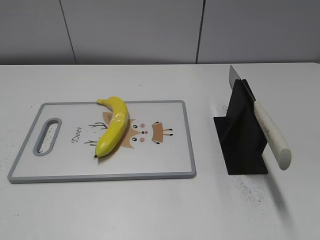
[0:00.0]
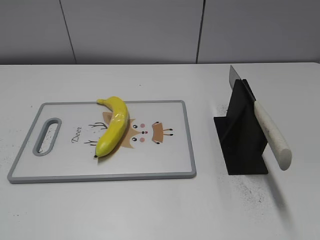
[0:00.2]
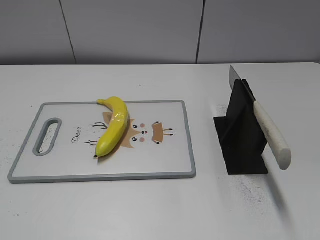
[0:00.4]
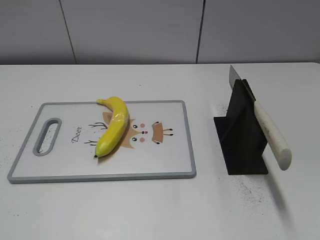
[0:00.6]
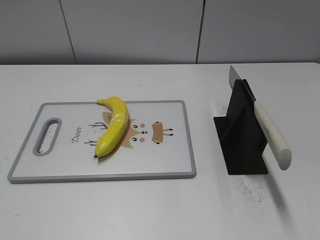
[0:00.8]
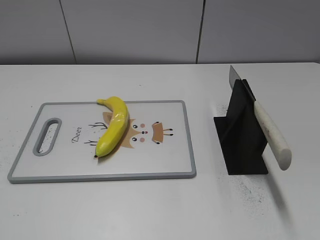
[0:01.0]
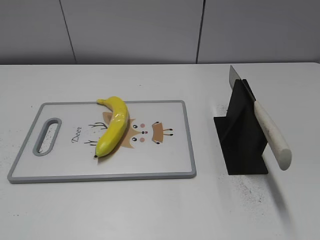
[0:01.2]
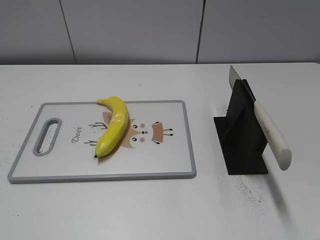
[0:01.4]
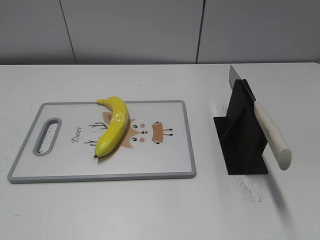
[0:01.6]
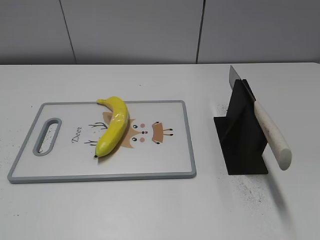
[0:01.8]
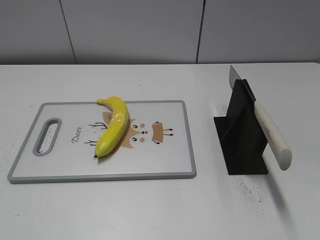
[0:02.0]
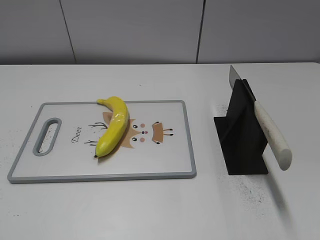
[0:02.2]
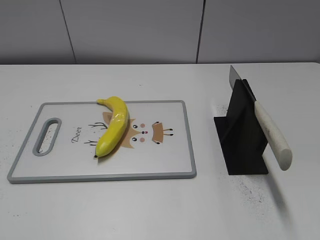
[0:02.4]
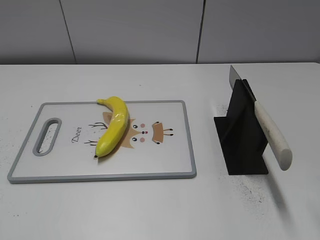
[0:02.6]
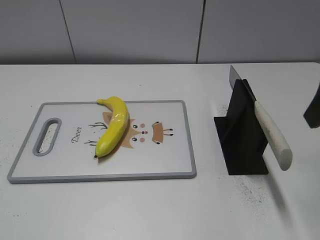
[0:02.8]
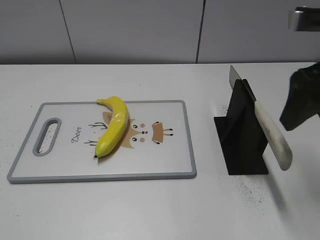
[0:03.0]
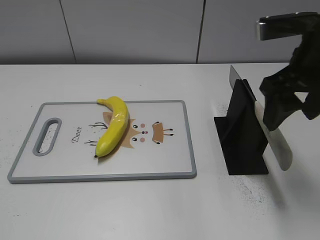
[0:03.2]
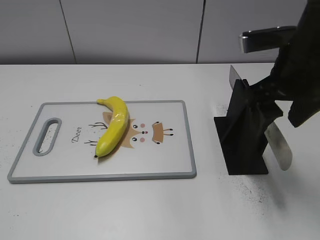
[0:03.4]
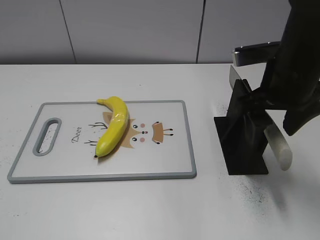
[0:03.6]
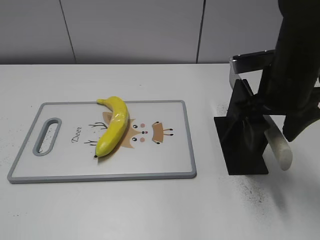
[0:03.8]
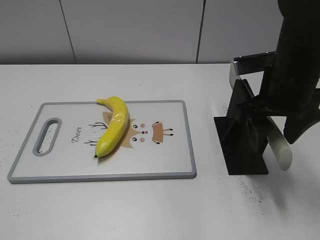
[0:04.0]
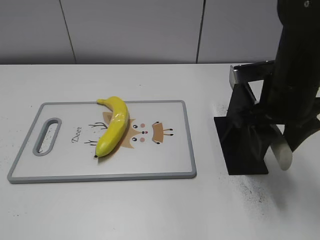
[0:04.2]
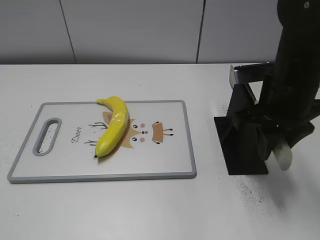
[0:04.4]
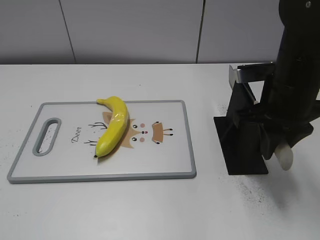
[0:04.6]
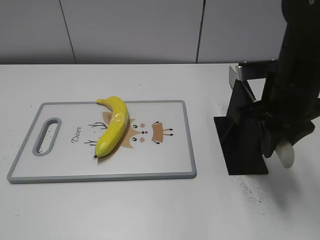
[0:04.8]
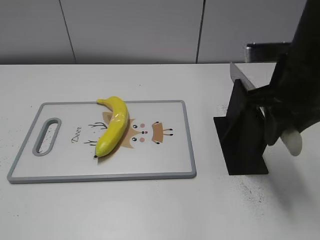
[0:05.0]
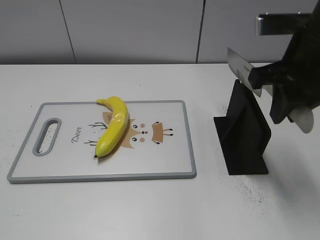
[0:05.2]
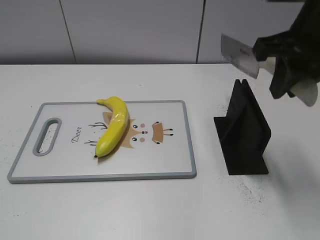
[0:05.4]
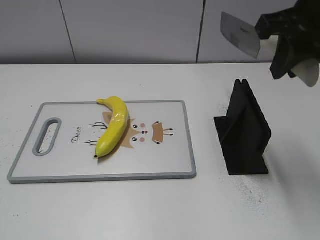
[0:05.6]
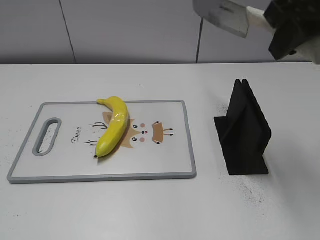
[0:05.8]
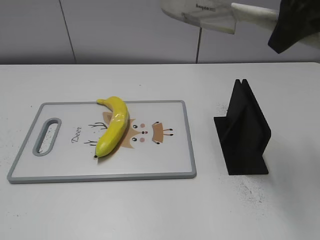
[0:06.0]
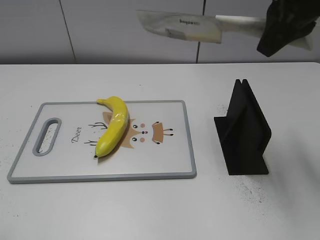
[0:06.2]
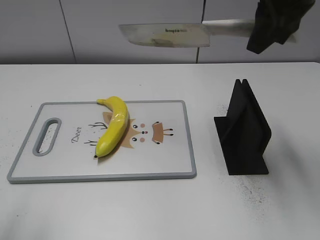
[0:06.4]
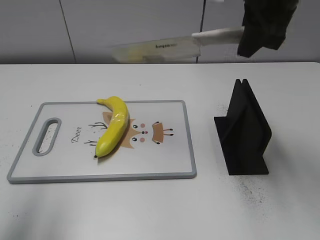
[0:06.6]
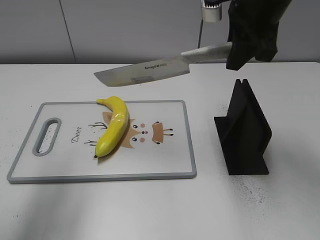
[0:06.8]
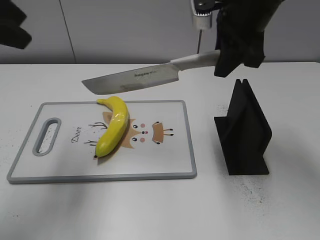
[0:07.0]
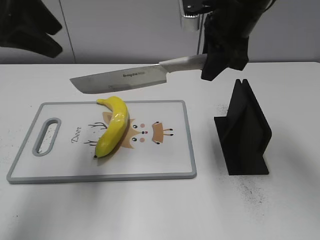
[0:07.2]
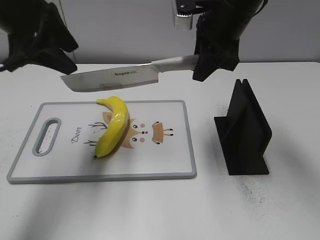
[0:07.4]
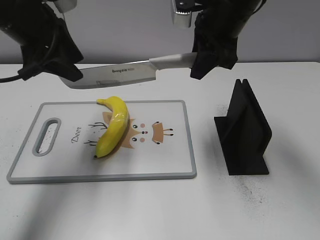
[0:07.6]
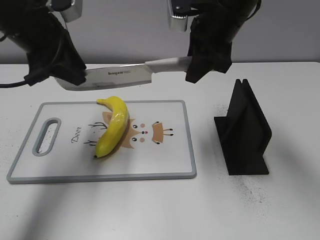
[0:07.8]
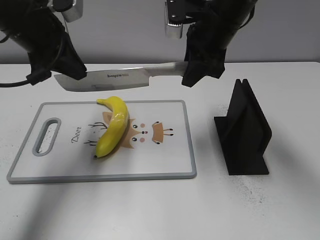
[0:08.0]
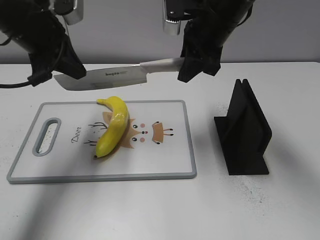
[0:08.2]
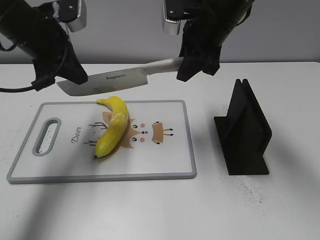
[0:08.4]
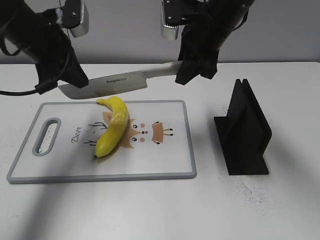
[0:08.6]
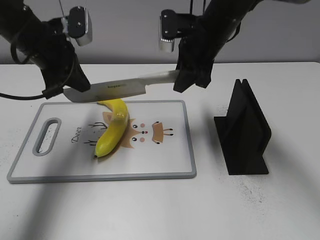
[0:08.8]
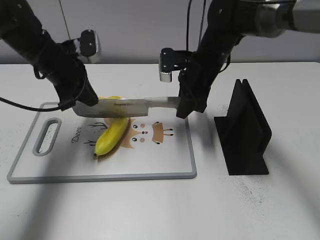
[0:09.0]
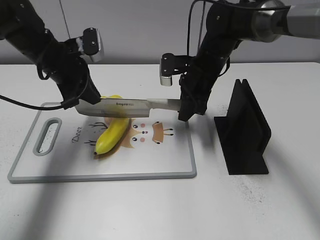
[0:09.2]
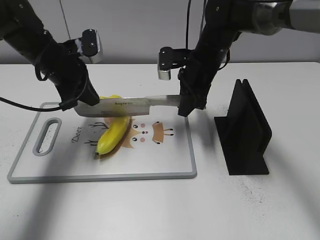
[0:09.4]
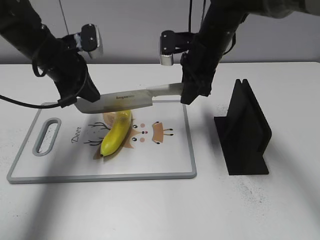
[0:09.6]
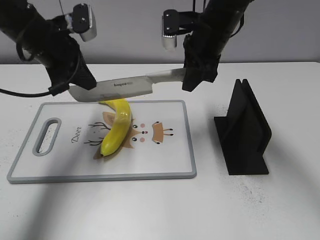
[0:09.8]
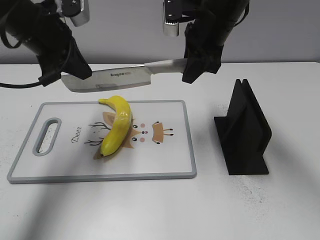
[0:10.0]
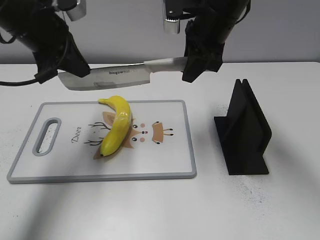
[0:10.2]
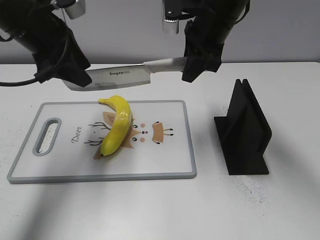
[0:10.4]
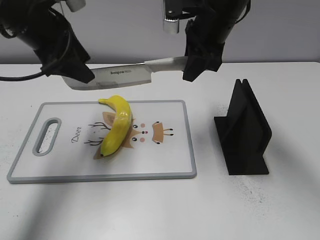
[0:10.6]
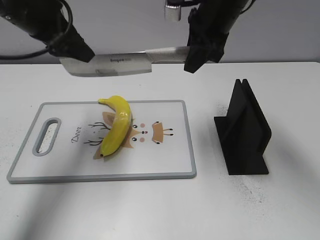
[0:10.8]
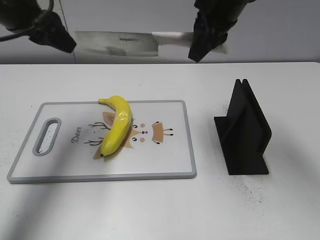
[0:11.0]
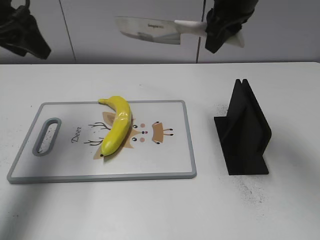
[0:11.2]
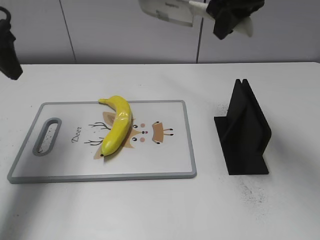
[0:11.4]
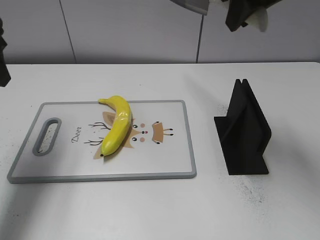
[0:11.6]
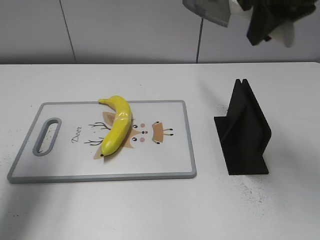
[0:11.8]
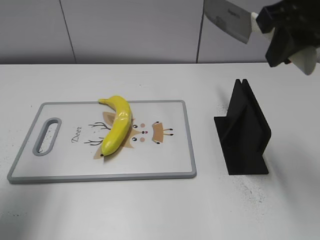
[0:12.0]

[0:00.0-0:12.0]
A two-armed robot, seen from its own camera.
Task of the whole recording: cut plastic banana.
Step, 0.0 to 5.8 s: Grab the knife handle with your right hand.
Step, 6.0 to 10.2 s: Hold the blade with your left hand.
Step, 10.4 to 11.6 s: Cut the banana with your right hand.
1.6 to 3.0 s: The right gripper is displaced forward by roughly 25 cm.
3.0 to 4.4 s: The right gripper is displaced downward and to the left by about 10 cm, and closes its fingers.
4.4 to 6.0 s: The right gripper is displaced upward by some 15 cm.
6.0 to 7.6 s: The right gripper goes approximately 15 cm forward, downward and to the left; the left gripper shifts some 35 cm forward.
7.6 to 9.0 s: The right gripper moves downward, about 15 cm. The left gripper goes some 15 cm downward and forward, and closes up.
9.0 to 10.4 s: Both grippers travel together upward, roughly 10 cm. The left gripper opens up.
10.4 to 12.0 s: The right gripper is displaced backward, upward and to the right by roughly 20 cm. The left gripper is displaced backward and to the left by some 15 cm.

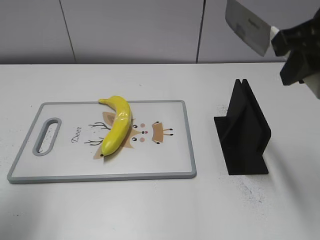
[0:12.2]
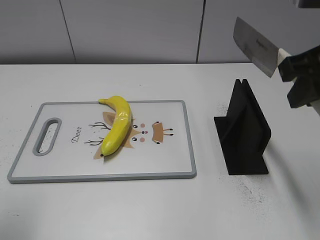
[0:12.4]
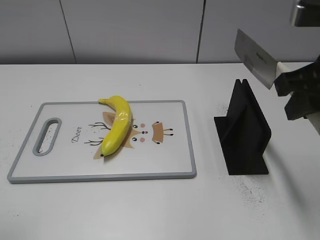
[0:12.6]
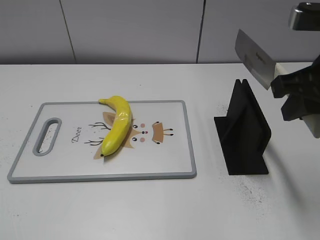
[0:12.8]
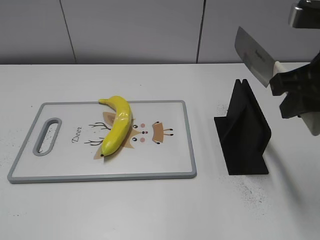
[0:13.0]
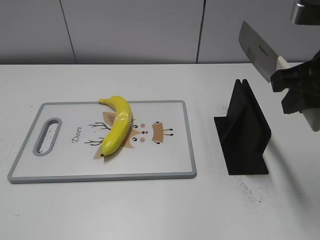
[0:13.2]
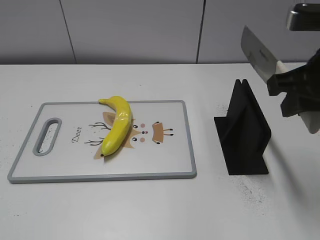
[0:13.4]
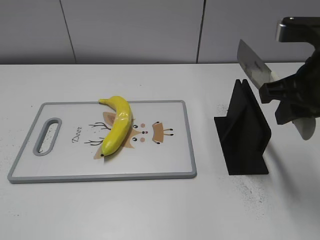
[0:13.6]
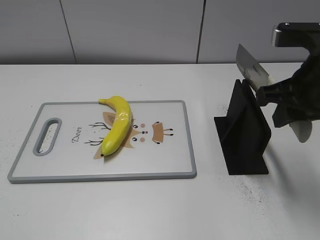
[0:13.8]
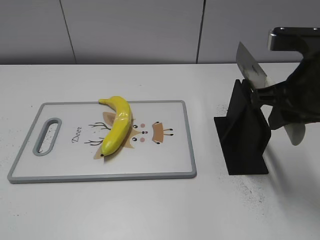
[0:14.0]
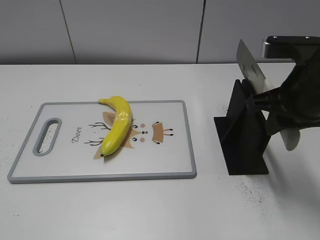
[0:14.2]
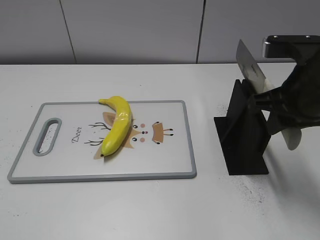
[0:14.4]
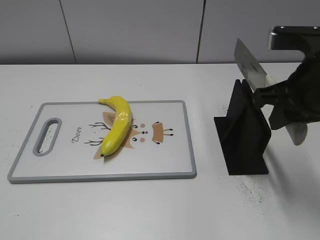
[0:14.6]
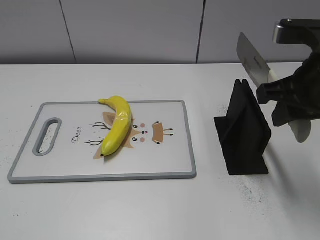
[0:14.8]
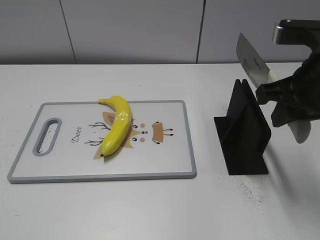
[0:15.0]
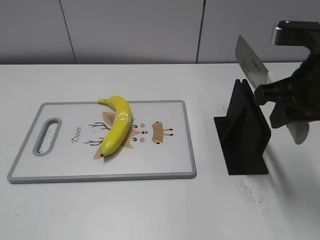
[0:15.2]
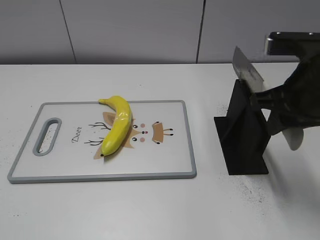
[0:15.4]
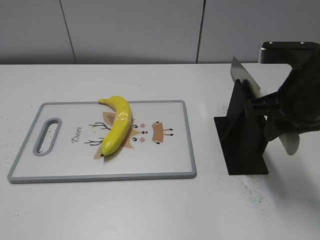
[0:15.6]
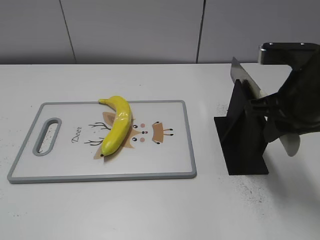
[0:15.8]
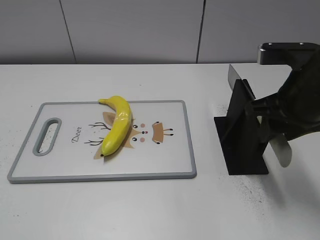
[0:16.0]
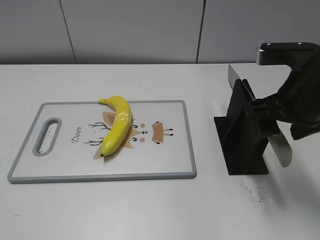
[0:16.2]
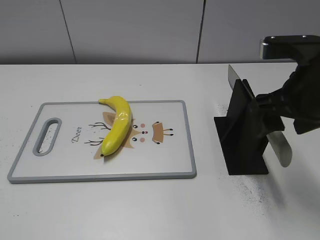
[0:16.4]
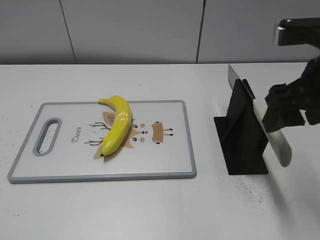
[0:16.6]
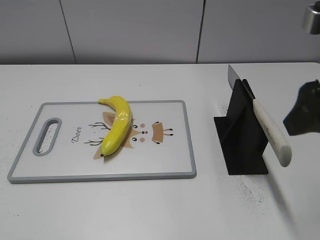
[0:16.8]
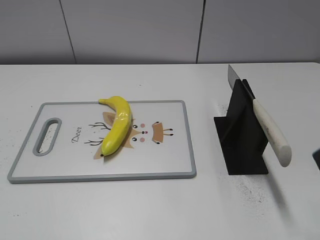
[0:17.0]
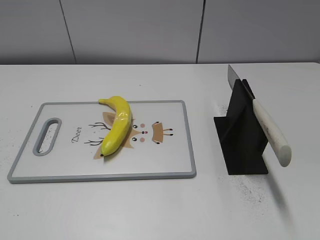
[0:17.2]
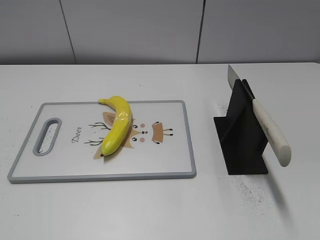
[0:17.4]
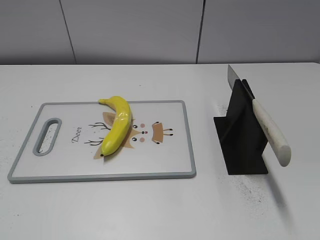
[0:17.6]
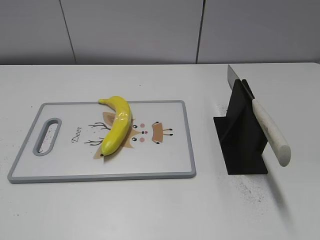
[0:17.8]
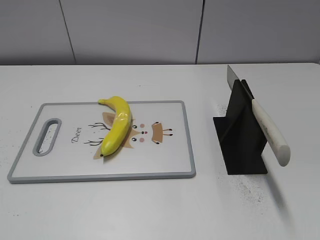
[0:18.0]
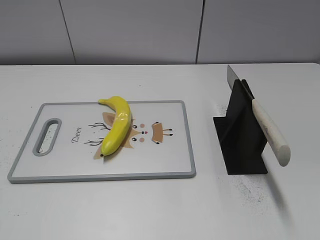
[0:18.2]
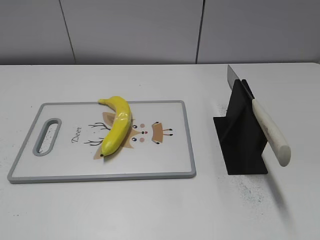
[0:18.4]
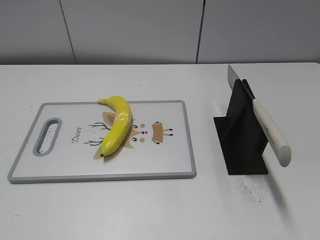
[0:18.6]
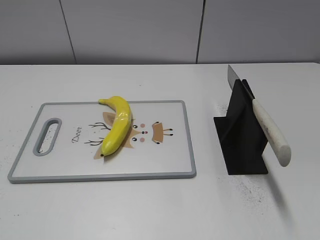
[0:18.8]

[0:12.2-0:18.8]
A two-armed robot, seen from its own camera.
Task of the whole recording: cut plastic banana.
Step, 12.2 to 12.8 s: Lift the knife with your right hand.
Step, 13.0 to 18.8 s: Place the knife on the storage rack with your right hand.
12.2 to 13.8 s: The left gripper goes approximately 20 cm backward; the right gripper heads downward, covering some 10 cm.
13.8 to 15.4 s: There are only small adjustments of the grippers.
15.4 to 17.2 s: The right gripper heads backward and to the right, covering roughly 15 cm, and opens its fingers.

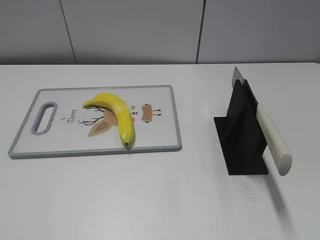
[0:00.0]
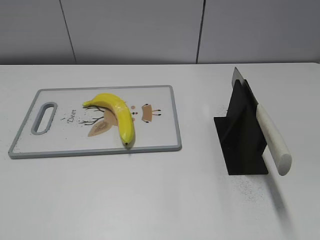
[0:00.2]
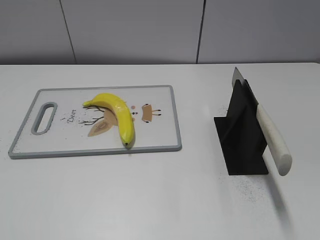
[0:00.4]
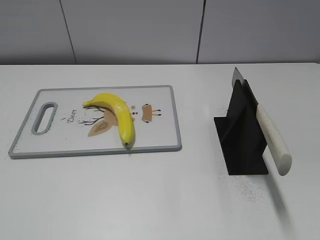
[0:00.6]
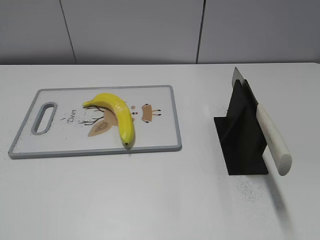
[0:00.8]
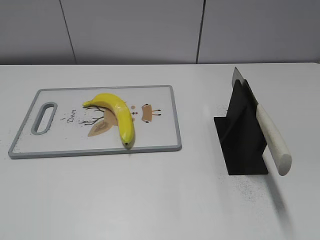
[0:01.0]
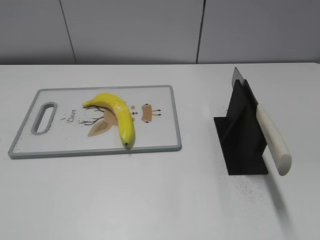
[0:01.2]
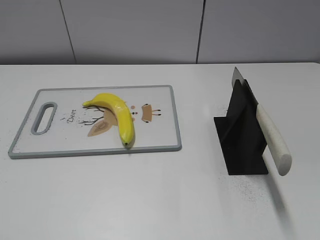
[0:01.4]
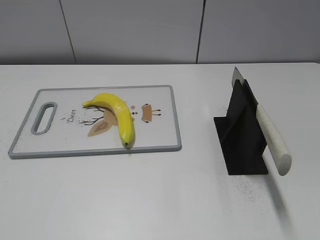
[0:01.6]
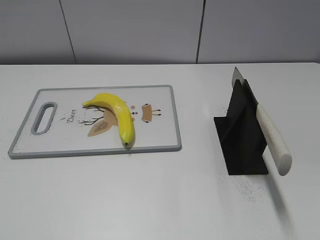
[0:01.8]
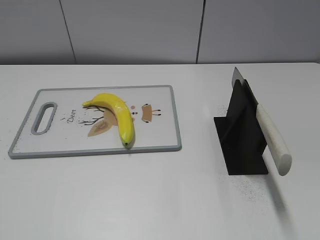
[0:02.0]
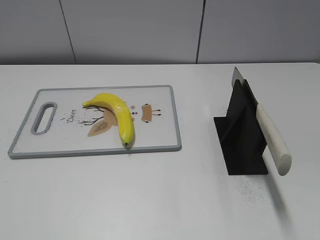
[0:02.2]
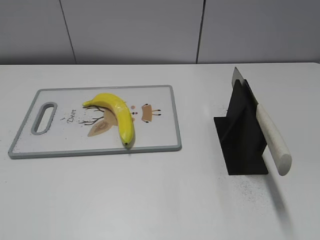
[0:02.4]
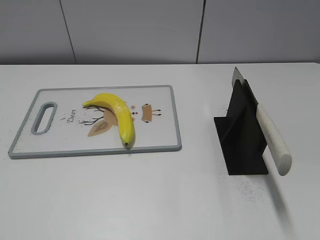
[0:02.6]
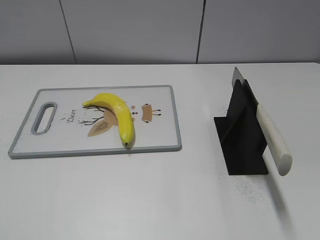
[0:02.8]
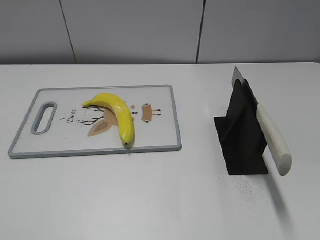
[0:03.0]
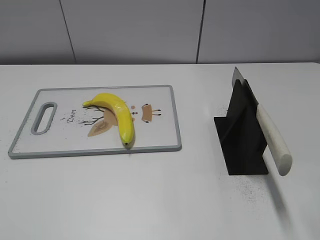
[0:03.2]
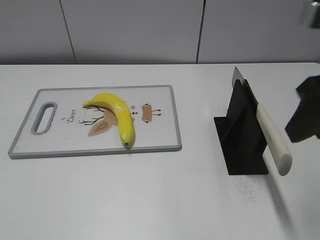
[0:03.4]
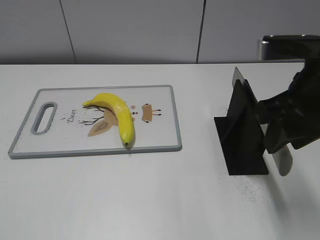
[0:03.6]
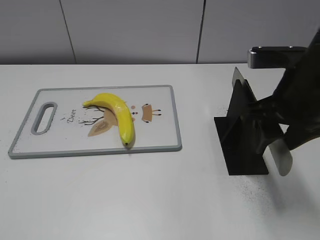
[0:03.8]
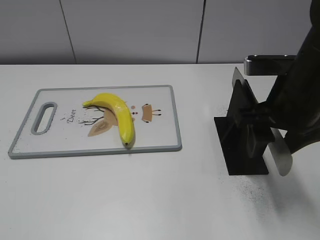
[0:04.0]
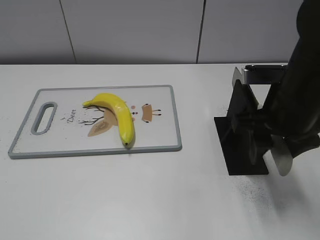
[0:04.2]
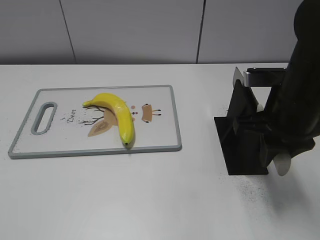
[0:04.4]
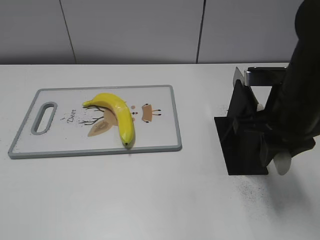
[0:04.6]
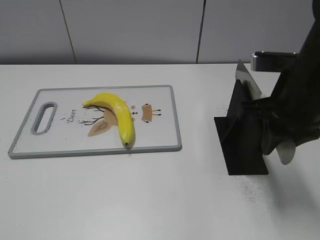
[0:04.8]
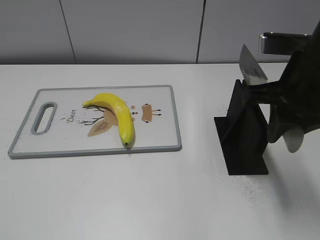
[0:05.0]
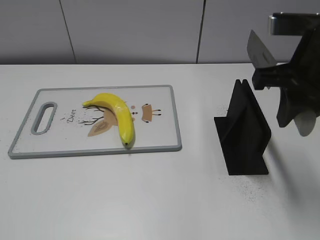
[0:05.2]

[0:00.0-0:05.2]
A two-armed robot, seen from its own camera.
Task of the whole recording: cut plastic banana.
1.8 to 3.4 s: The right gripper heads forward and to the left, covering approximately 20 cm.
3.4 to 5.2 s: The right gripper moves roughly 10 cm downward and comes back, and closes.
